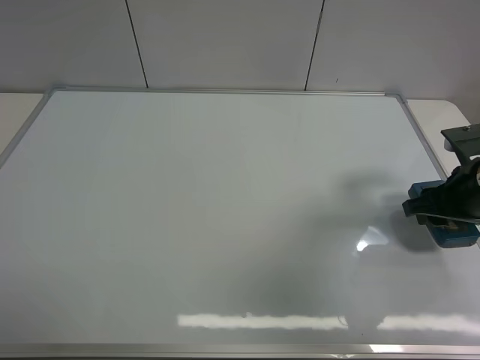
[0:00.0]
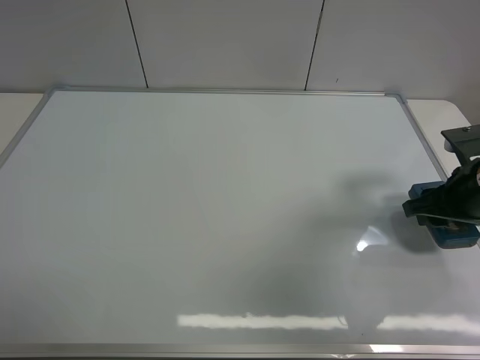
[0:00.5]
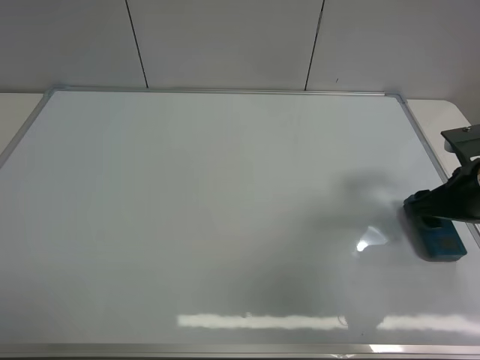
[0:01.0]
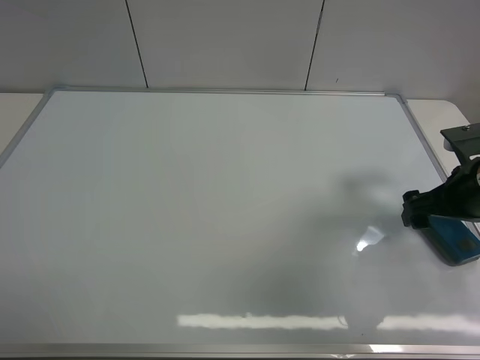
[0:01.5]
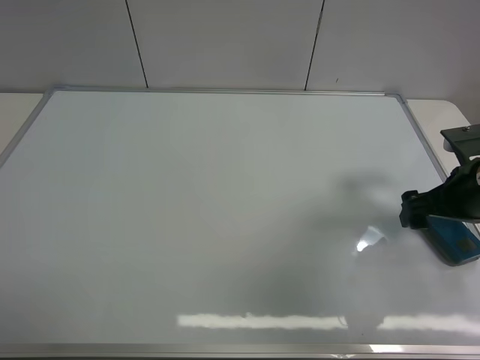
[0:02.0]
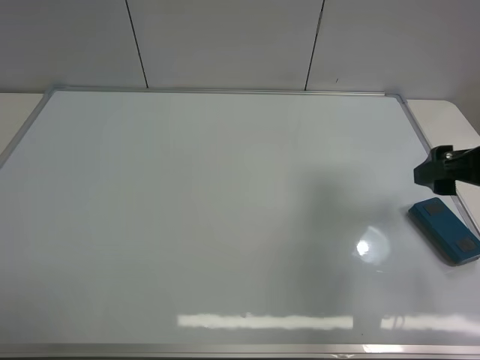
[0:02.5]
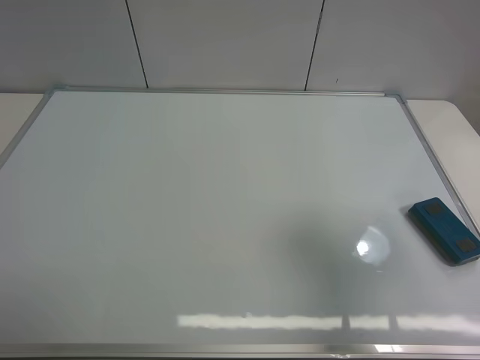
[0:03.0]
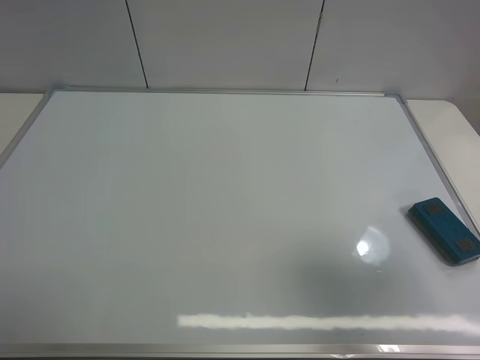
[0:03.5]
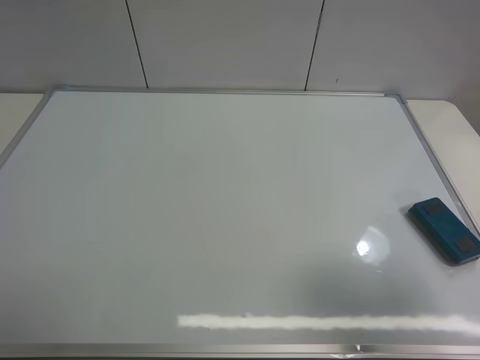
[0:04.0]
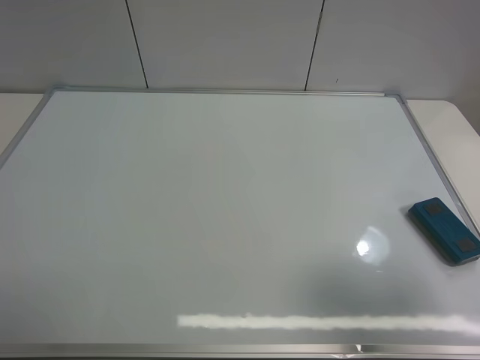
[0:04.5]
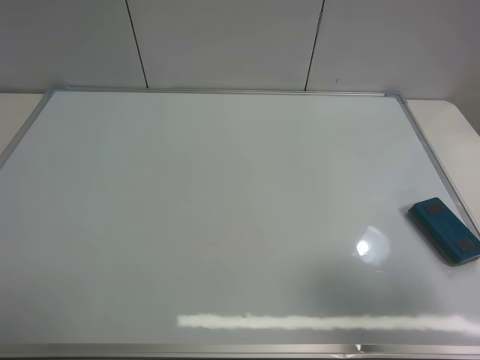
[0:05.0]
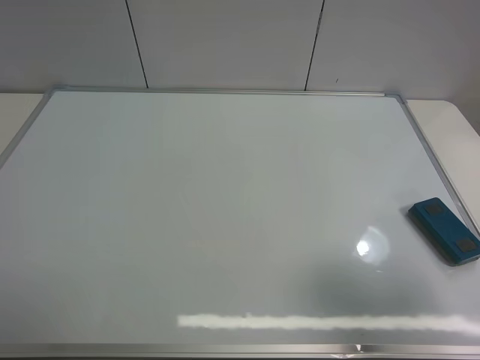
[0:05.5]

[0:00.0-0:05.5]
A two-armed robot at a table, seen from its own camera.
Task of the whole recording: use the right gripper to pick up the board eraser, wipe the notes on the whiteboard clean, and then put them back in place.
0:00.0 to 0:02.0: The right gripper opens.
0:02.0 to 0:03.5: The right gripper is displaced backward and upward by some 25 cm.

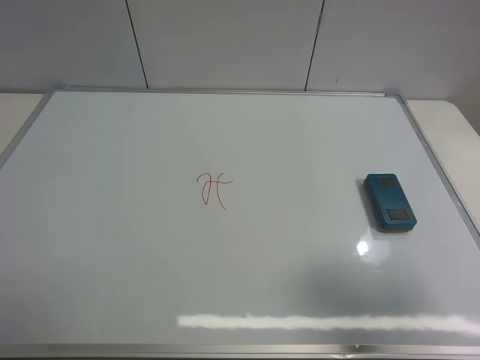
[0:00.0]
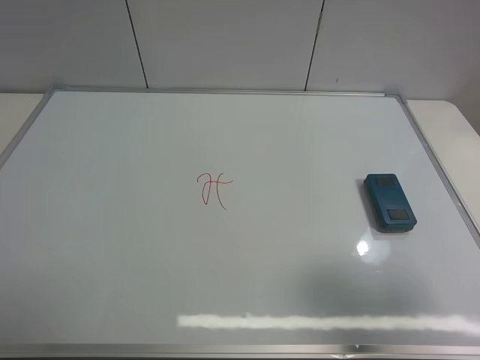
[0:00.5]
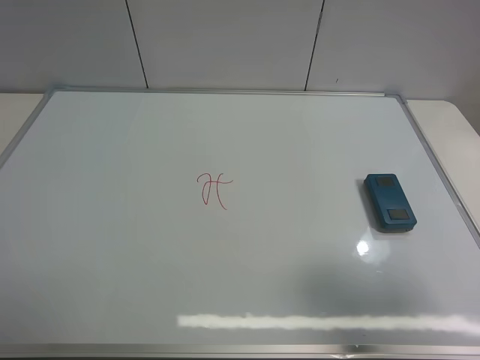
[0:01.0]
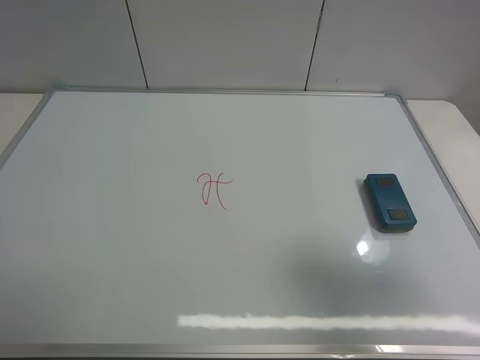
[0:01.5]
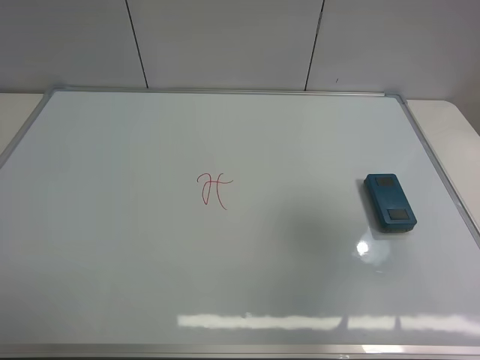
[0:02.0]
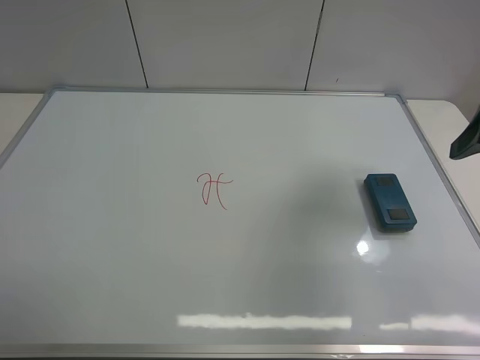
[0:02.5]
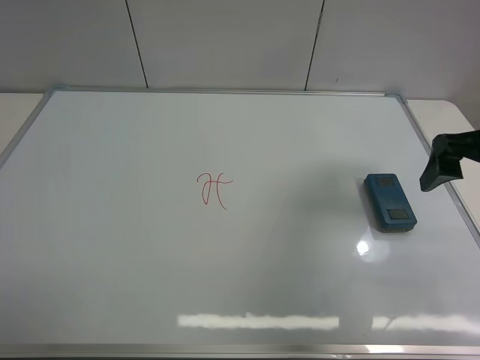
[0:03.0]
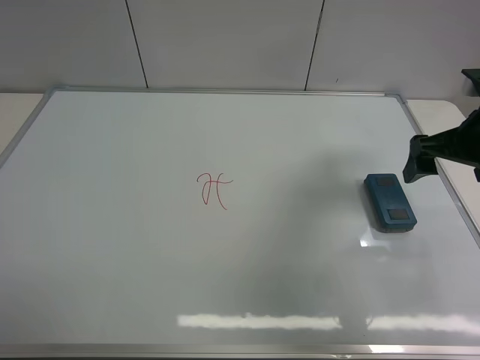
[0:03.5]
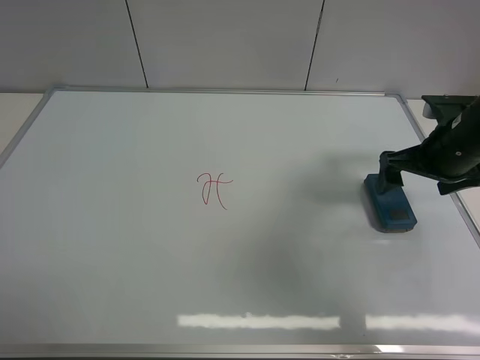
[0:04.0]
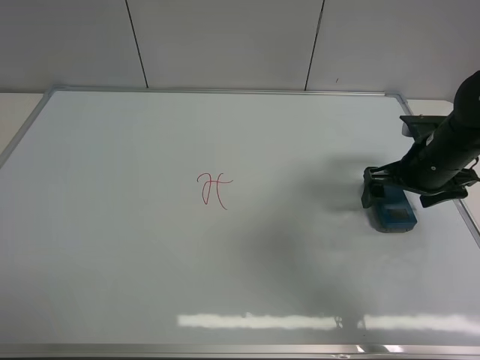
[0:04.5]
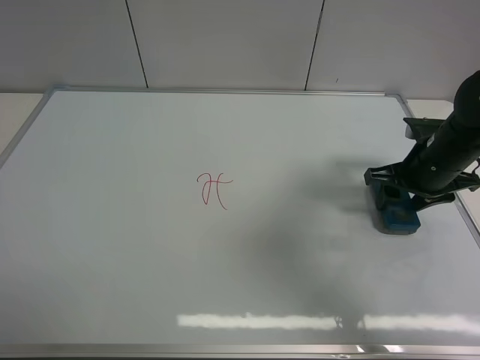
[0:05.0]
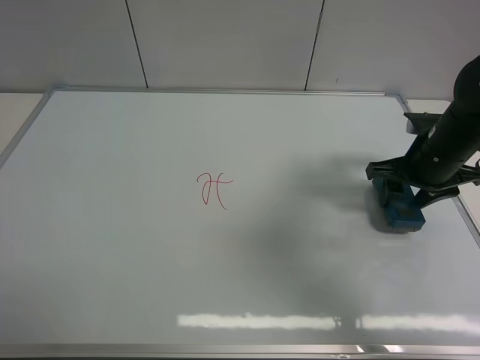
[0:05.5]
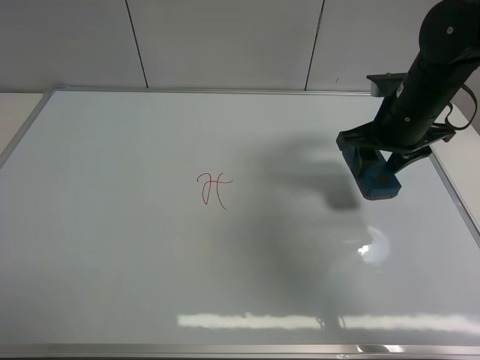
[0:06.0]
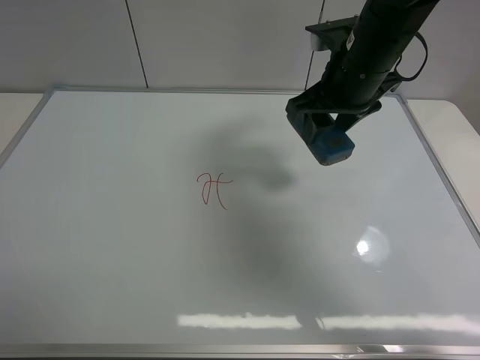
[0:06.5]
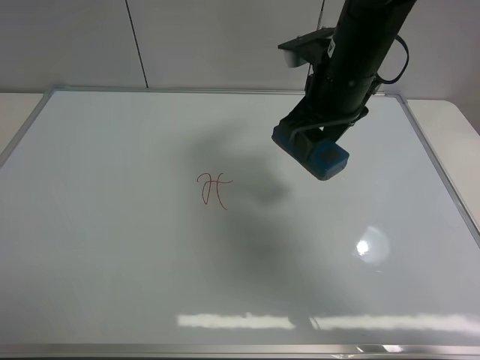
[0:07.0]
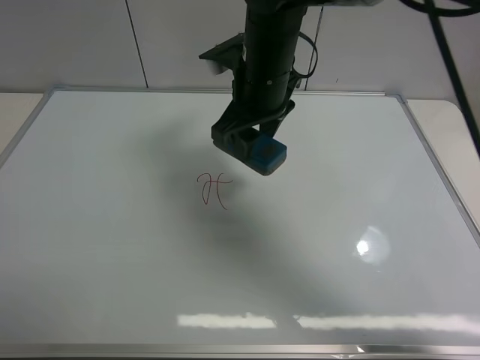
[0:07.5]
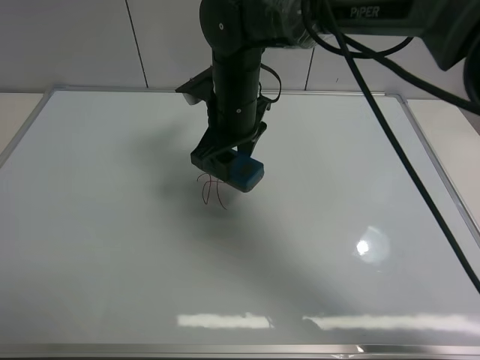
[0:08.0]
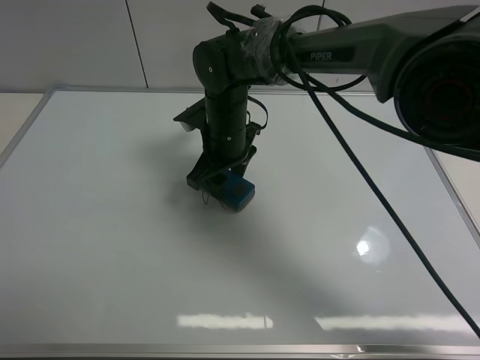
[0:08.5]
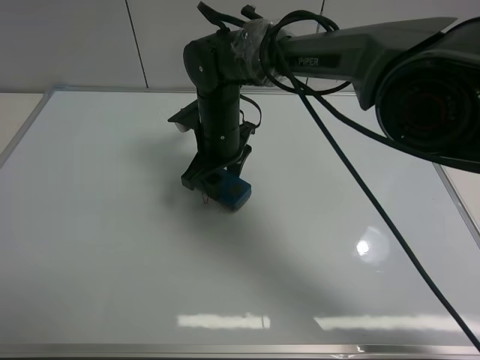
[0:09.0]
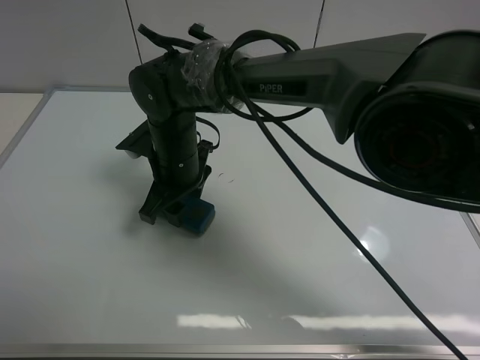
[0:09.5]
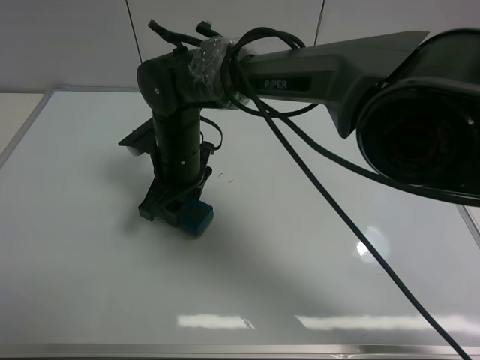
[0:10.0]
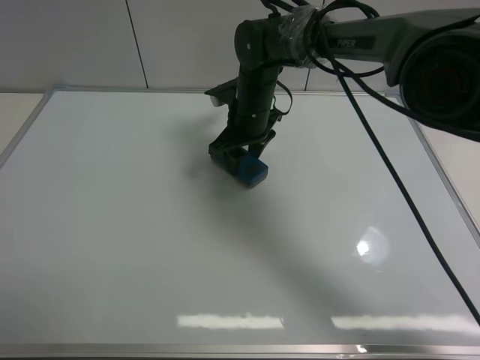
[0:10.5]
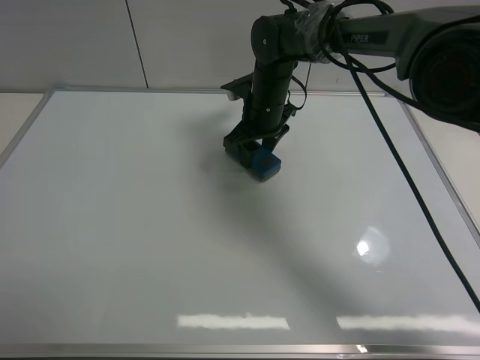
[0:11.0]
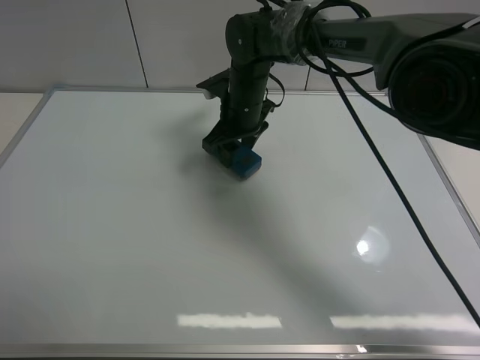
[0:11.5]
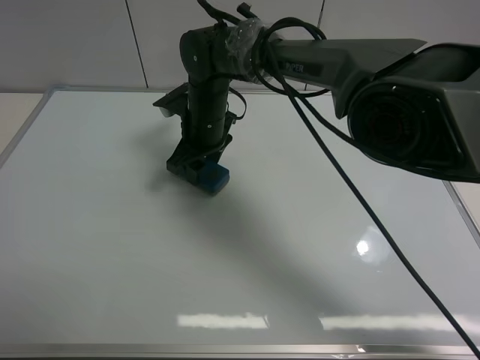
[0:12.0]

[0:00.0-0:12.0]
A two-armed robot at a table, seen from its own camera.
Task of the whole recording: use the right gripper to pick up the board eraser, wipe the notes on the whiteboard clean, and then put them back in place.
Step, 0:00.0 to 0:05.5: Pick up the board eraser with right gripper.
0:00.0 to 0:02.0: The right gripper goes approximately 10 cm forward and upward.
0:02.0 to 0:04.0: The right gripper moves forward and downward, some 25 cm.
0:04.0 to 0:06.0: The right gripper is displaced to the left by some 5 cm, and closes up.
0:06.0 to 0:08.0: The right gripper goes about 20 cm to the left.
0:08.0 to 0:10.0: The right gripper shifts some 10 cm to the left and downward.
0:10.0 to 0:12.0: The right gripper goes roughly 5 cm forward, and moves about 10 cm to the right and comes back.

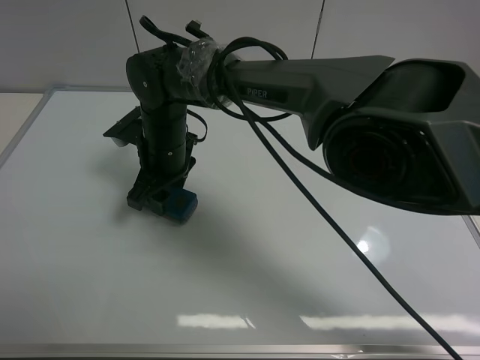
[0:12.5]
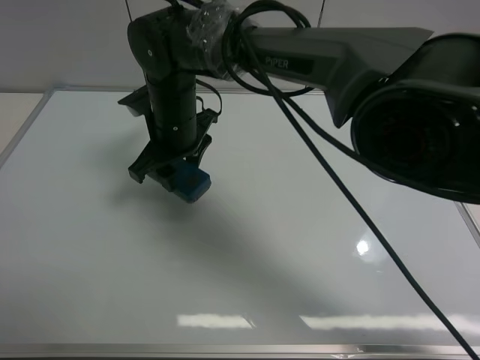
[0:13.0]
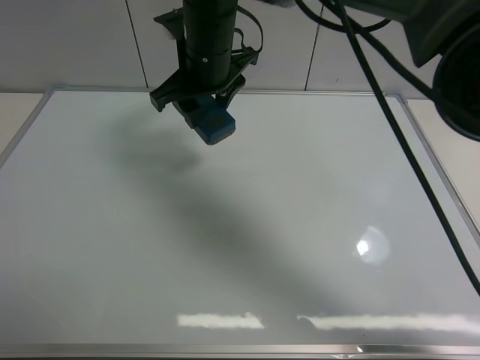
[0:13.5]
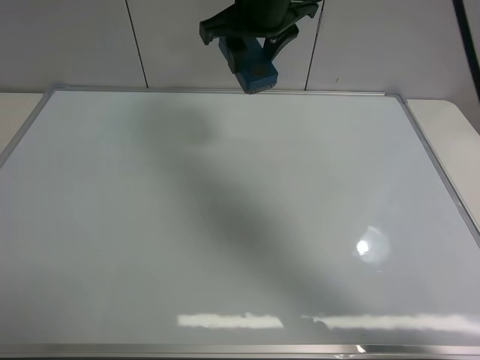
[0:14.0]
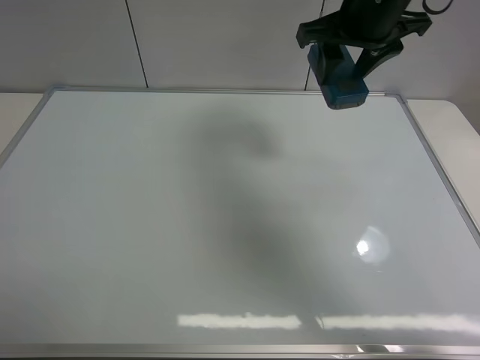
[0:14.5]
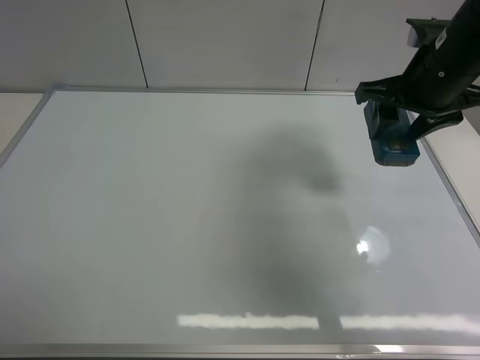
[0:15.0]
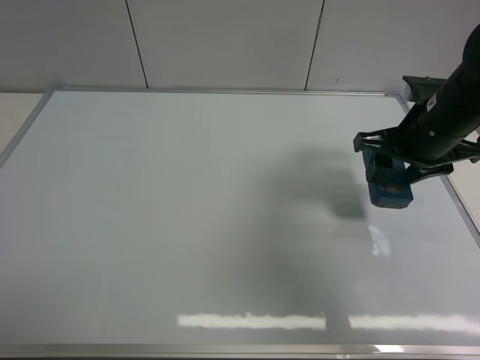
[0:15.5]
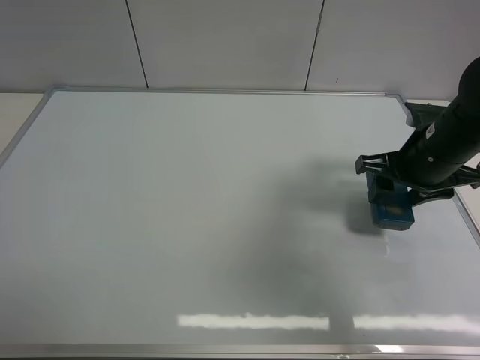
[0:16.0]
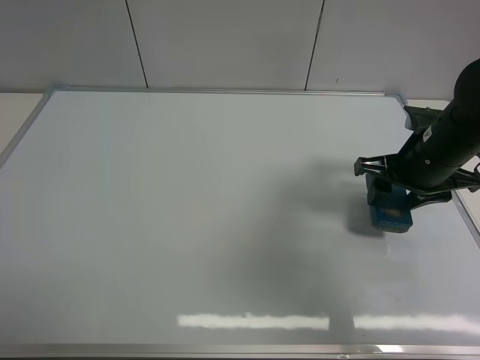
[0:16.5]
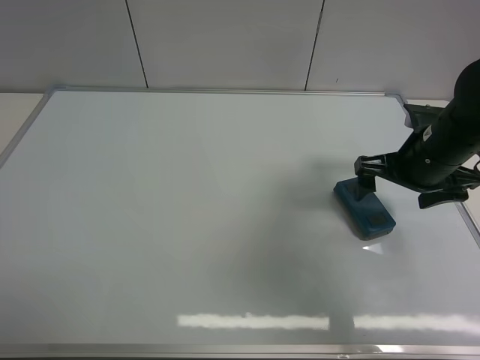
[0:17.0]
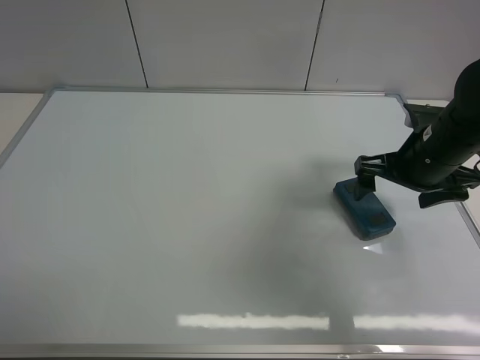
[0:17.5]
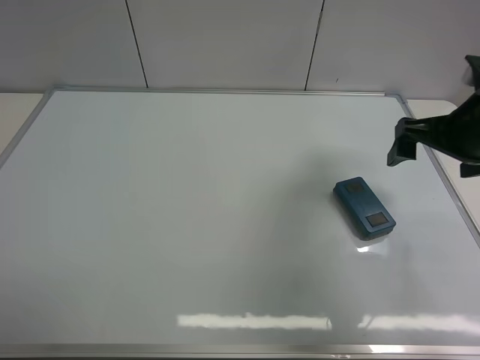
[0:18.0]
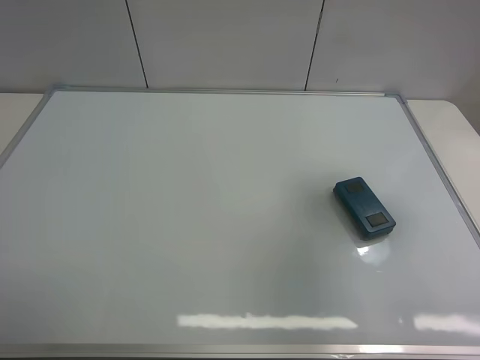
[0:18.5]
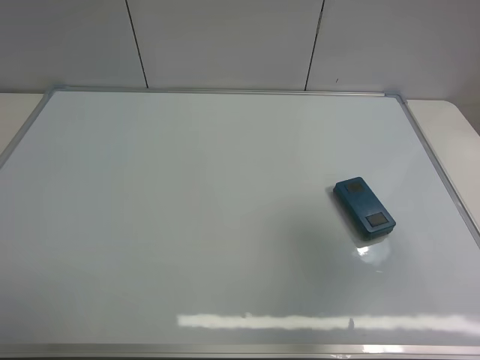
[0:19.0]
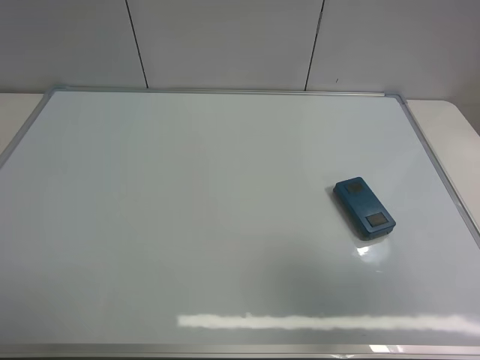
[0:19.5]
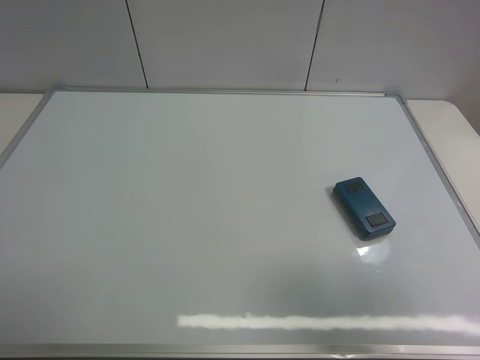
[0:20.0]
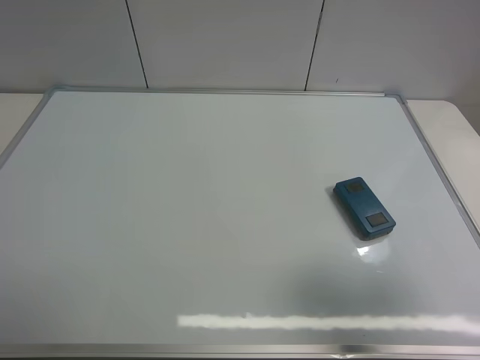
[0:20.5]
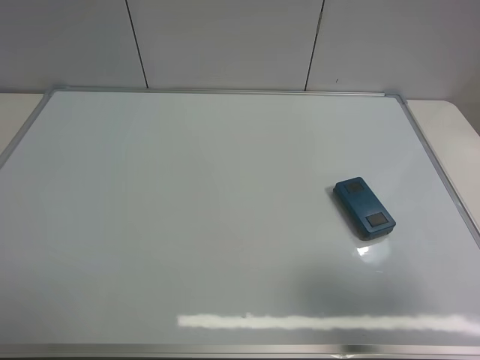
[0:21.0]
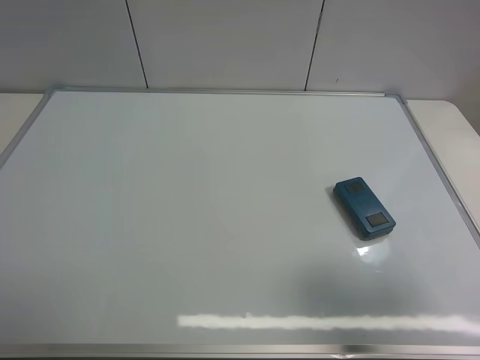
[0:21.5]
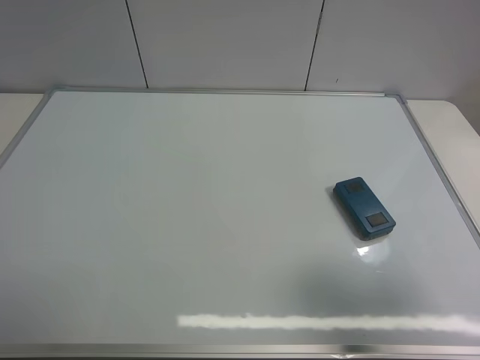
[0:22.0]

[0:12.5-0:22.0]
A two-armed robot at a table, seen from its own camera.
Task of the whole recording: use the right gripper to pick up the board eraser, wipe the notes on the whiteboard clean, and then put them back in place.
Step, 0:13.0 to 0:17.5: Place the board eraser on the right side of board with right gripper.
0:12.5 to 0:14.5: The right gripper goes about 30 cm to the right and upward.
0:14.5 to 0:16.5: The right gripper moves downward, to the right and backward, some 20 cm.
0:16.5 to 0:18.0: The right gripper shifts approximately 5 cm upward, and opens.
0:18.0 to 0:20.0: The right gripper goes about 25 cm backward.
